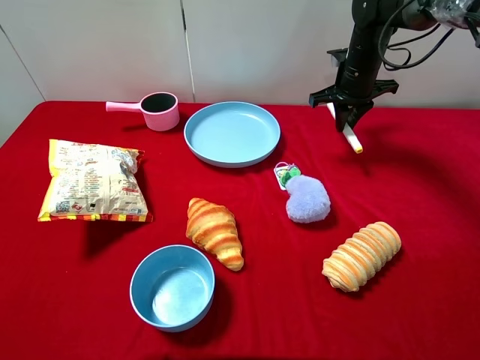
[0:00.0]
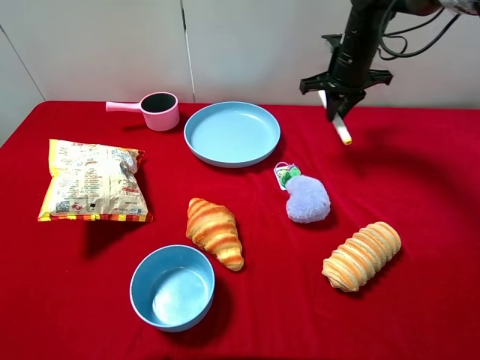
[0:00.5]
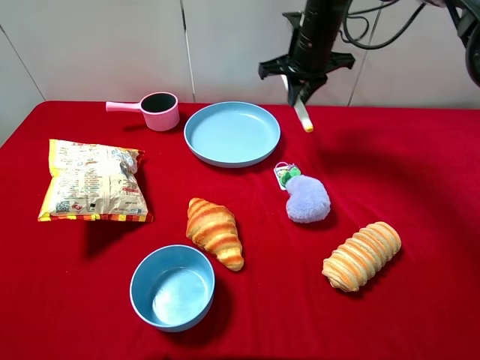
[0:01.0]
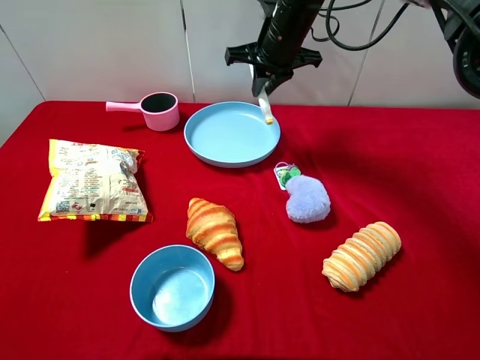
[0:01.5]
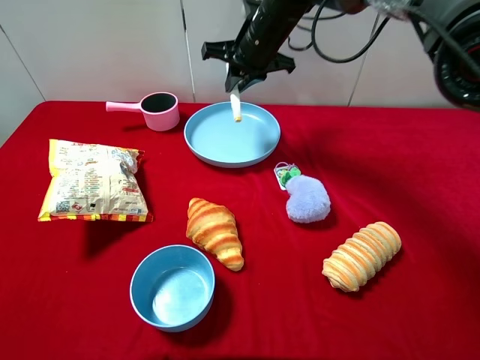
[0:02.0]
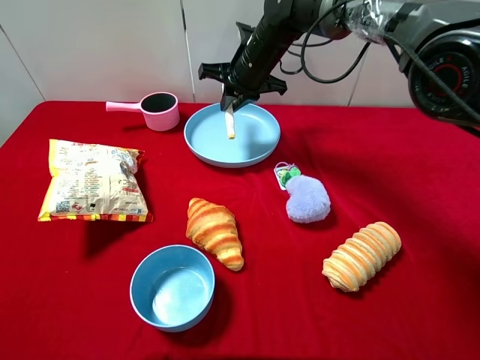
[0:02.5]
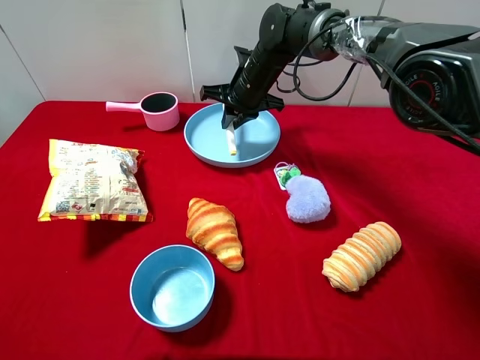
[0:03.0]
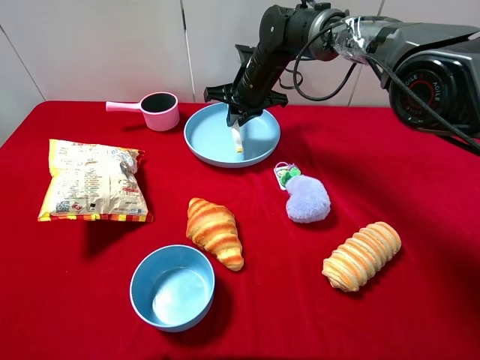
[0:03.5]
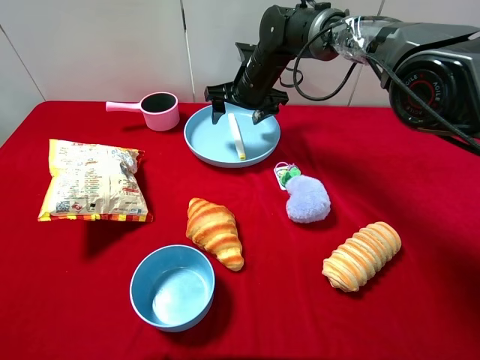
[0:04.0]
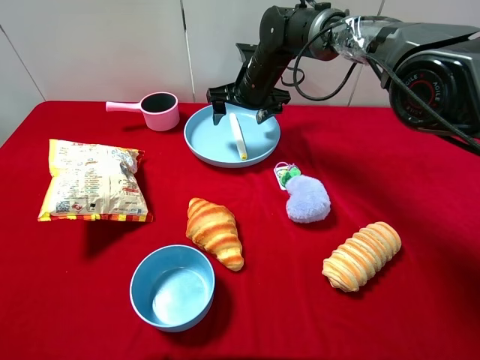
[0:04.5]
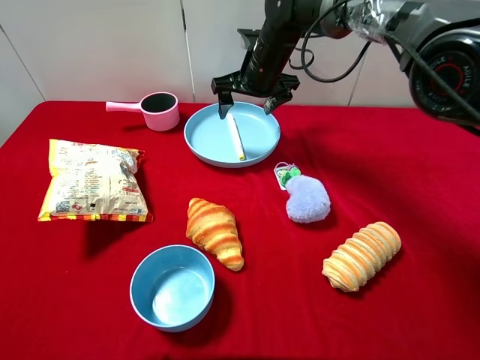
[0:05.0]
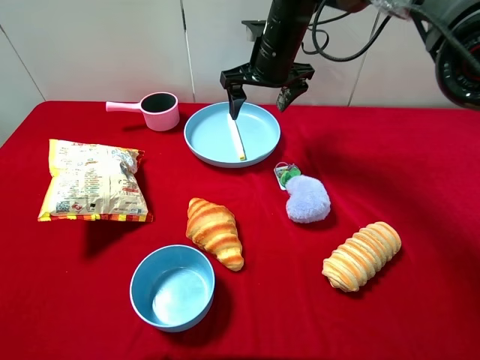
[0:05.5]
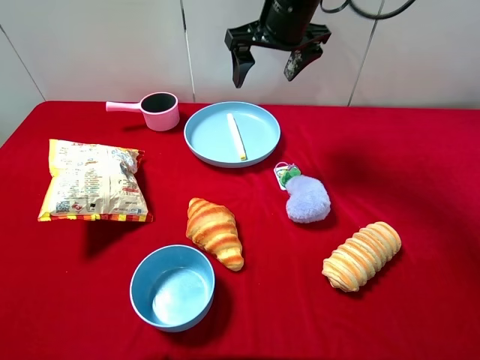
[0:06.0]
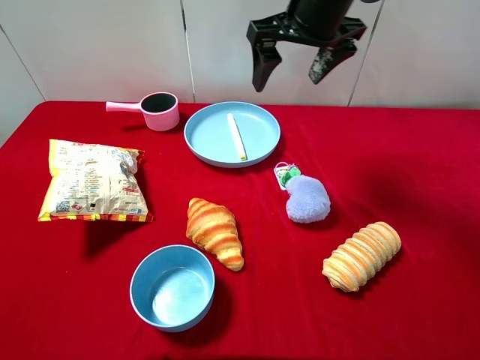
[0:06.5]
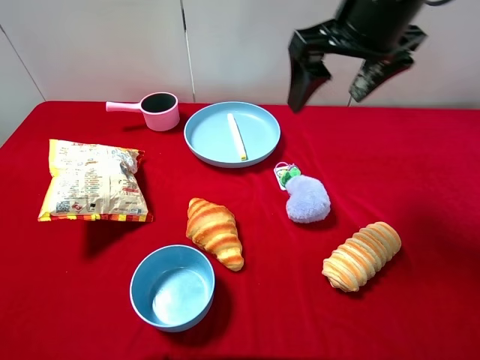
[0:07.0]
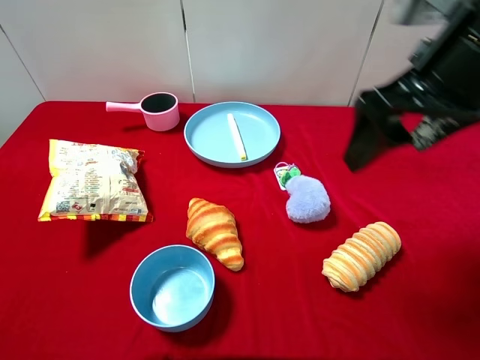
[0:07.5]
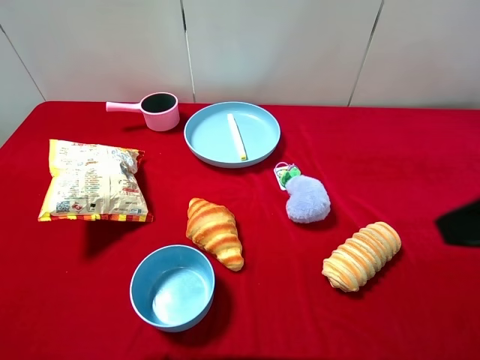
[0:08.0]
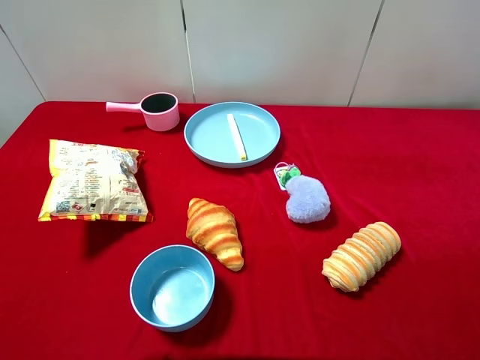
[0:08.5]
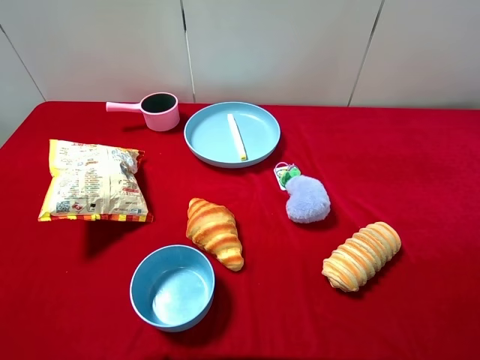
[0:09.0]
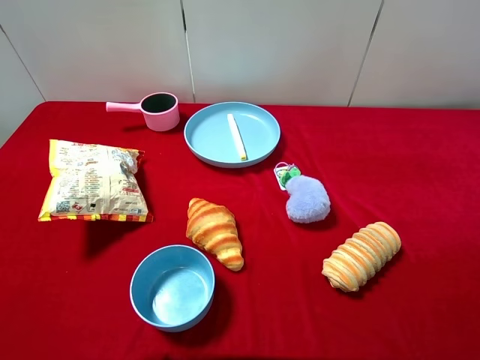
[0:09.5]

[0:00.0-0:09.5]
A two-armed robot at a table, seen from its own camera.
Task of the whole recording: pick up an item with a gripper and place it in a random container on the desktop.
0:00.0 to 0:02.0: The right gripper moves to the left, roughly 15 cm.
0:02.0 to 0:04.0: The right gripper heads downward, covering roughly 5 cm, and opens its fingers.
0:04.0 to 0:05.5: The right gripper shifts some 5 cm upward.
0:05.5 to 0:07.5: The right gripper moves backward, to the right and upward, approximately 30 cm.
0:07.5 to 0:09.5: The right gripper moves backward and to the right, roughly 25 cm.
